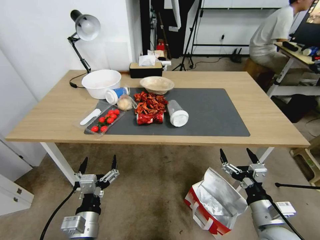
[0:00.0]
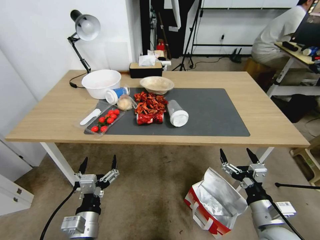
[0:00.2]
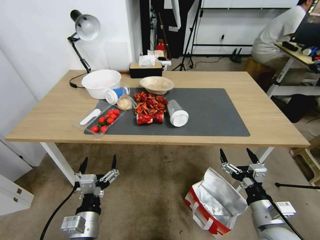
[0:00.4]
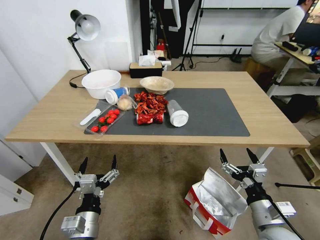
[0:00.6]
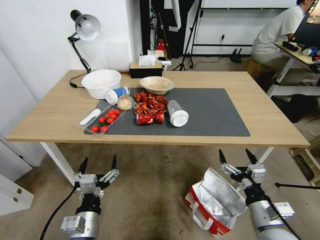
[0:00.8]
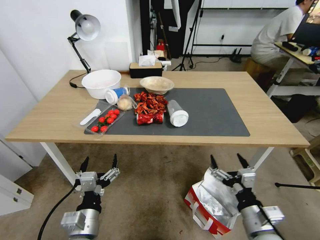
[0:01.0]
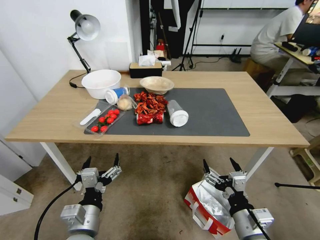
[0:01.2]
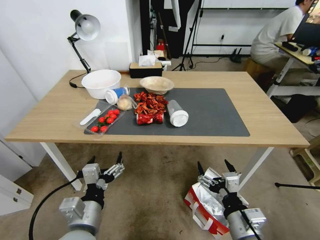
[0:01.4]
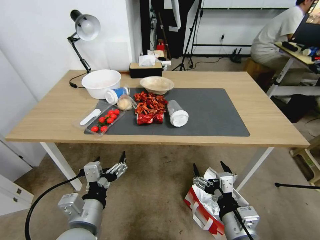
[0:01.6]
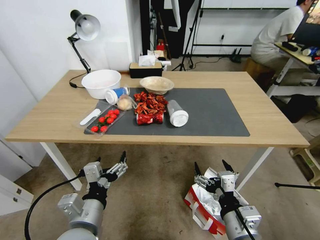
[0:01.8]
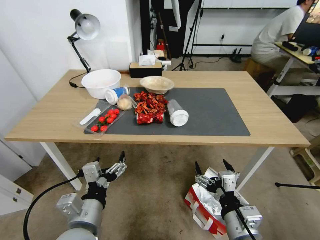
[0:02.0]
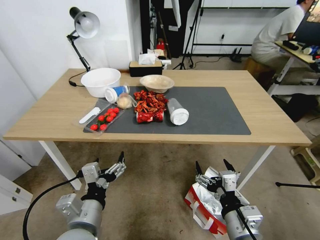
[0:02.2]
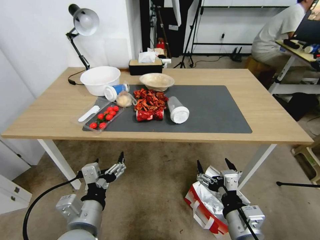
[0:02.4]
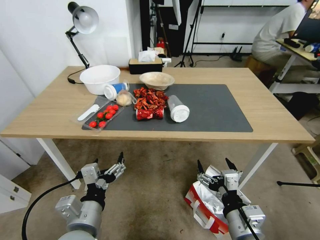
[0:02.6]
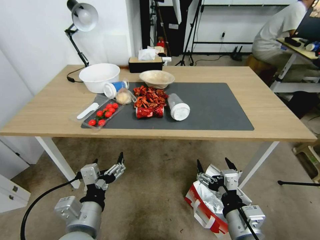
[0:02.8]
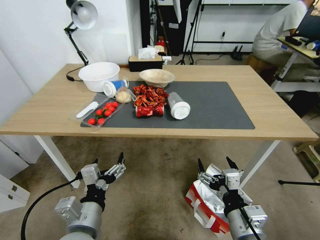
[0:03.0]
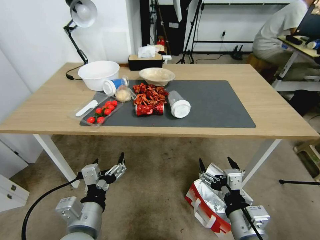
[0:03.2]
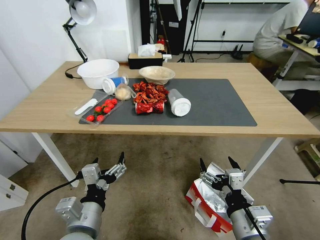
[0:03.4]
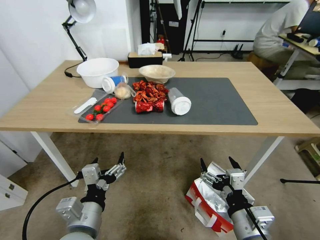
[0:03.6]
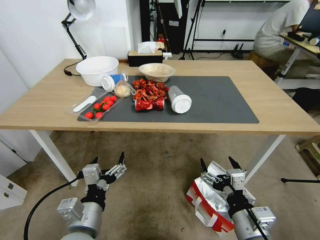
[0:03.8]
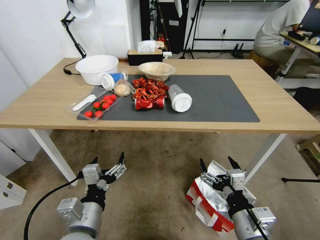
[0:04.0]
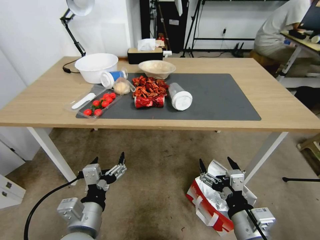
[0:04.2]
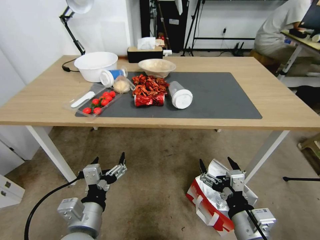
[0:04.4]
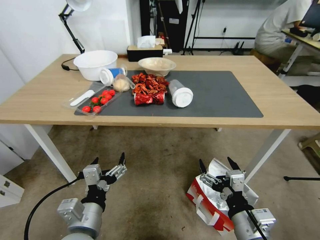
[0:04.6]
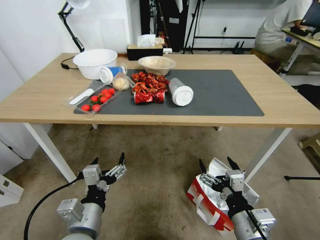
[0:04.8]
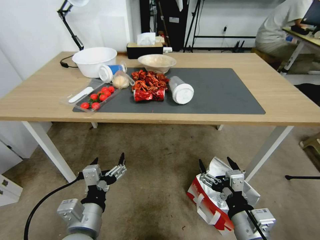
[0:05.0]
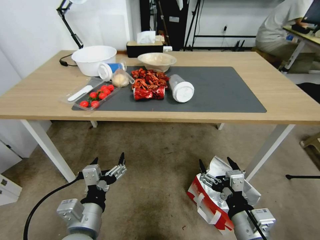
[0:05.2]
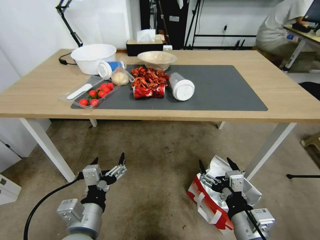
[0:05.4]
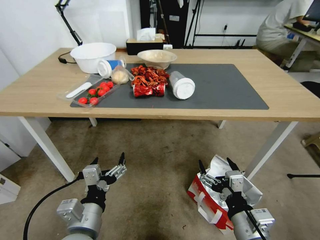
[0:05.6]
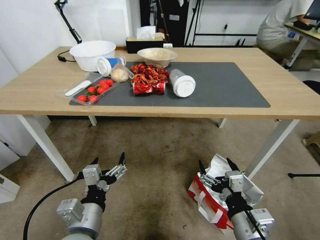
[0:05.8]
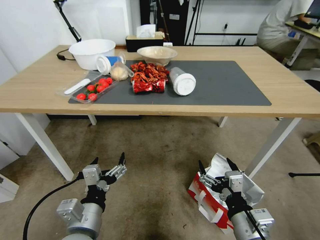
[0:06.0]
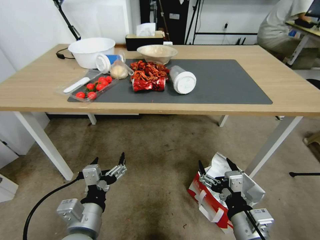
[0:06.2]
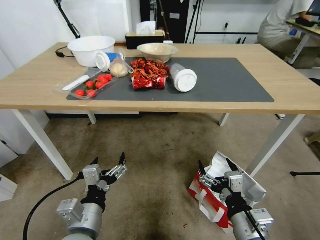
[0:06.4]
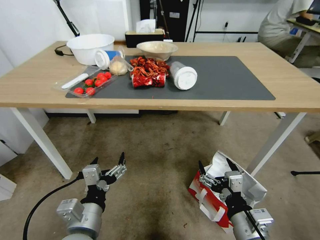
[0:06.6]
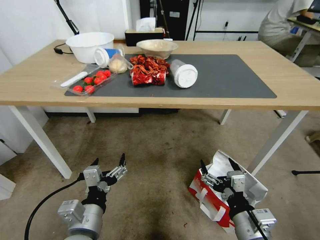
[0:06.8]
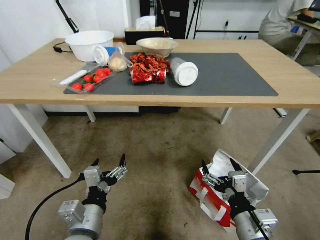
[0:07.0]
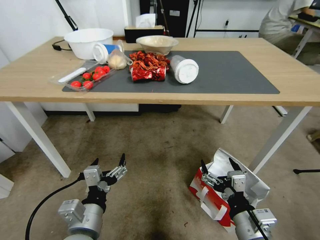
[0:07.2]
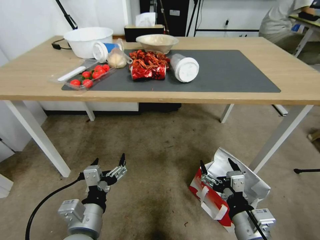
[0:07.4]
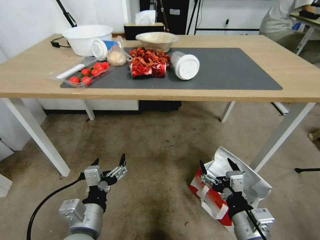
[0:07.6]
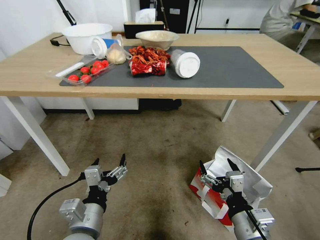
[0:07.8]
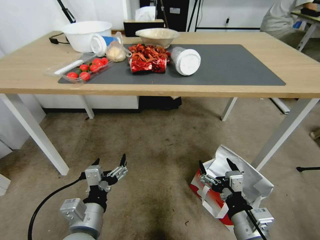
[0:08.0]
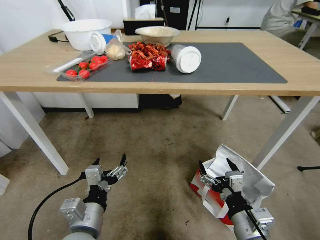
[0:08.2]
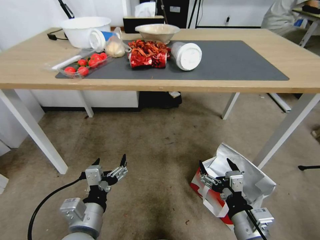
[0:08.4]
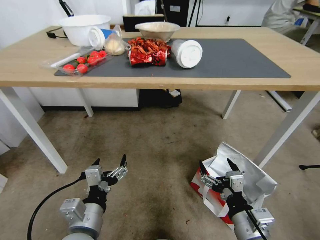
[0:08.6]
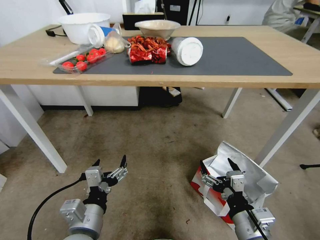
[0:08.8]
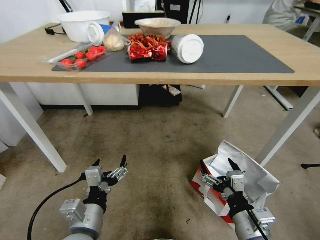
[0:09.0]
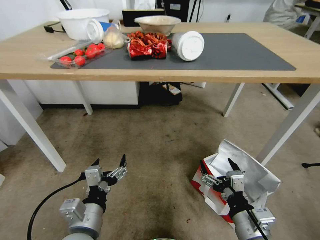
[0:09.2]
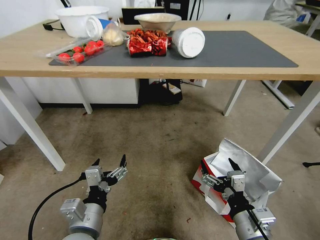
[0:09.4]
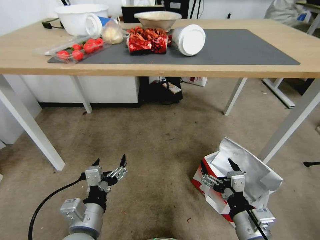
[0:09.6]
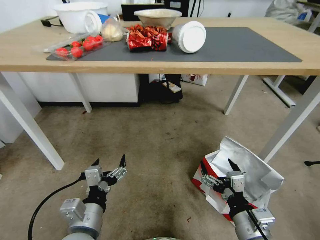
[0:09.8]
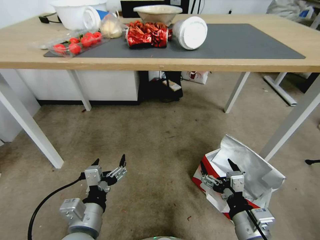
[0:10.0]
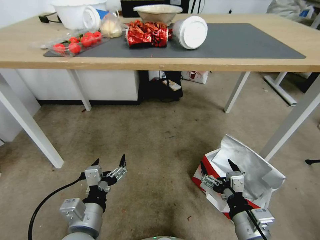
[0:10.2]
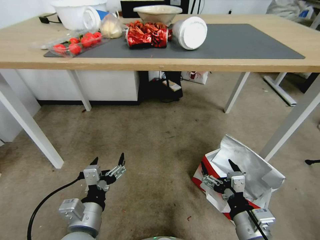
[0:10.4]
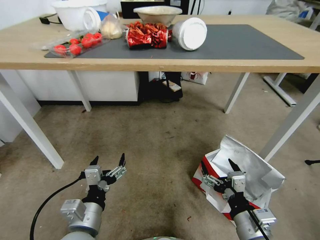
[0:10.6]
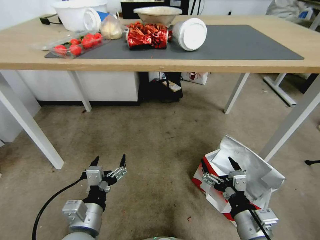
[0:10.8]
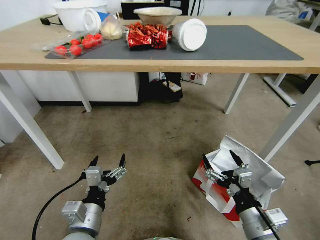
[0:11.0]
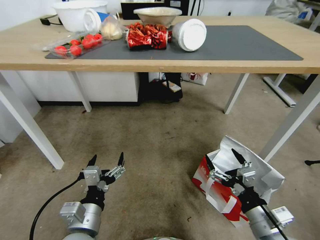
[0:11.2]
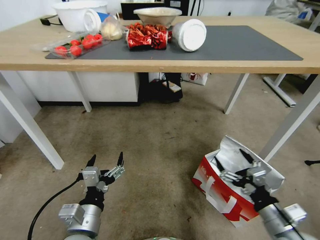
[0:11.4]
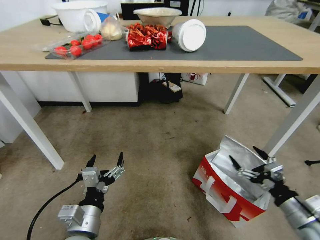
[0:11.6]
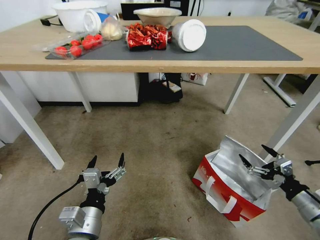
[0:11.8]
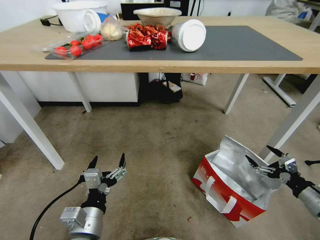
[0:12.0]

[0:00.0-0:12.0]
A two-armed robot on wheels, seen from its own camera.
Task of the whole recording: Pick up the food delivery bag from the floor and place it on the table.
0:10.4 to 0:12.0: The right gripper shifts some 25 cm to the right.

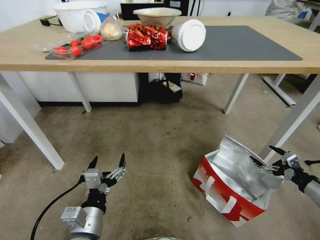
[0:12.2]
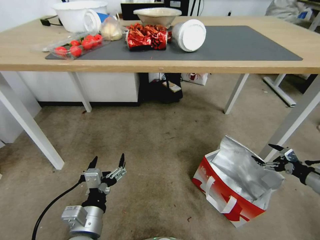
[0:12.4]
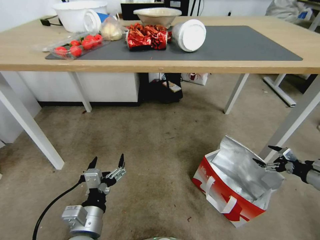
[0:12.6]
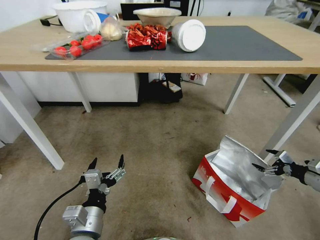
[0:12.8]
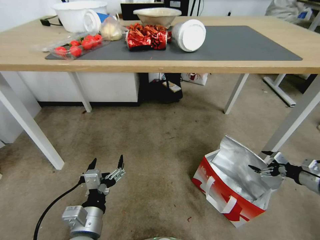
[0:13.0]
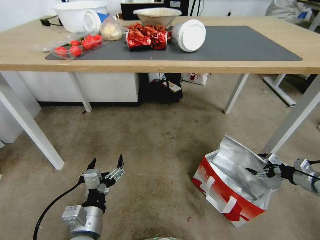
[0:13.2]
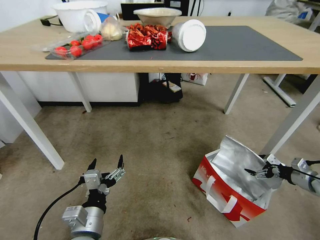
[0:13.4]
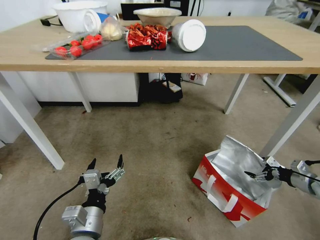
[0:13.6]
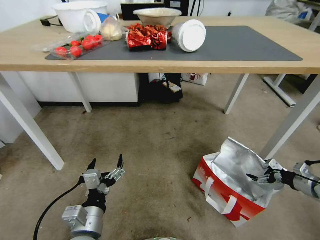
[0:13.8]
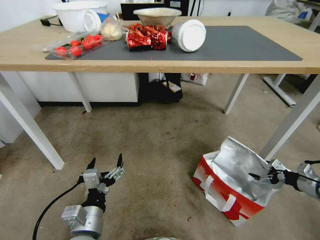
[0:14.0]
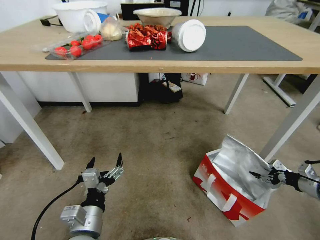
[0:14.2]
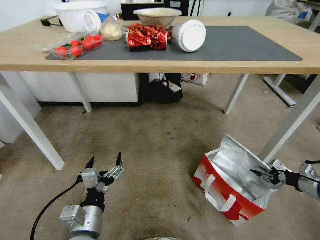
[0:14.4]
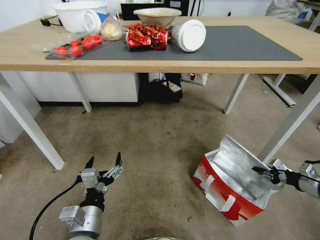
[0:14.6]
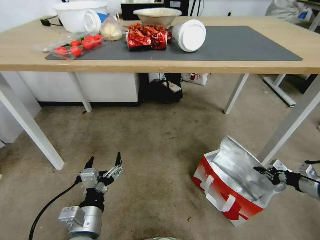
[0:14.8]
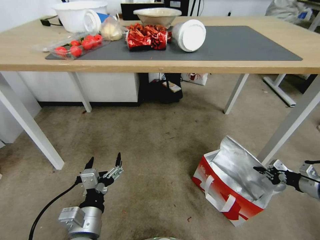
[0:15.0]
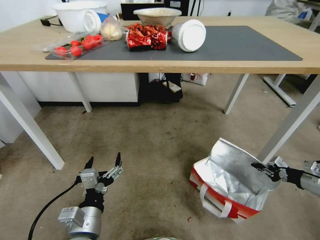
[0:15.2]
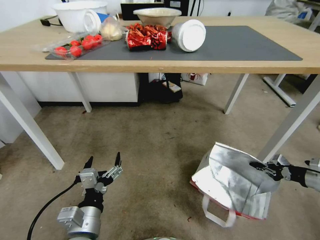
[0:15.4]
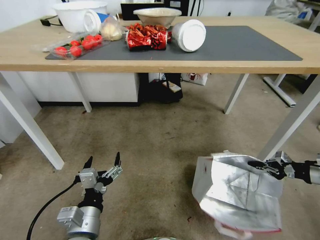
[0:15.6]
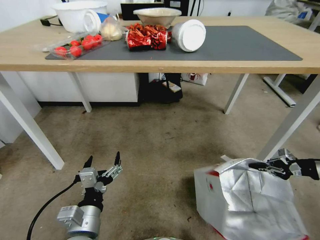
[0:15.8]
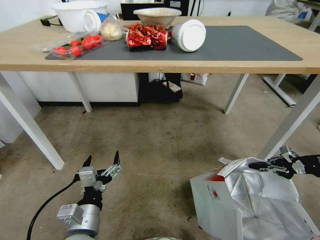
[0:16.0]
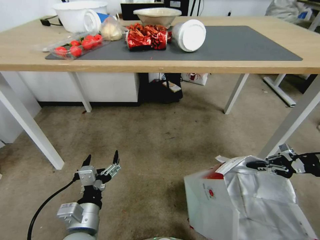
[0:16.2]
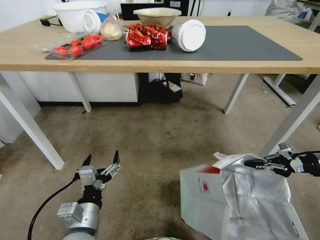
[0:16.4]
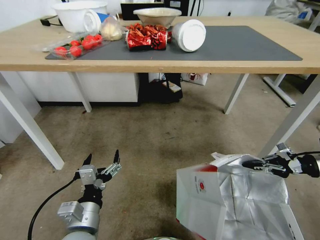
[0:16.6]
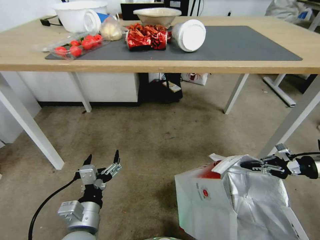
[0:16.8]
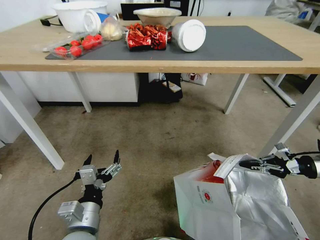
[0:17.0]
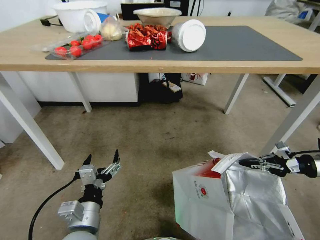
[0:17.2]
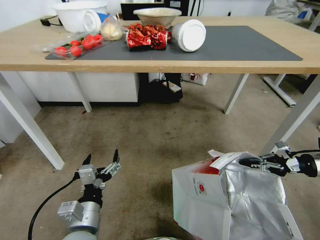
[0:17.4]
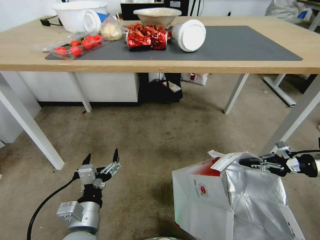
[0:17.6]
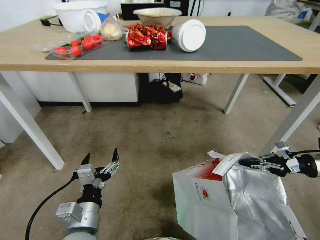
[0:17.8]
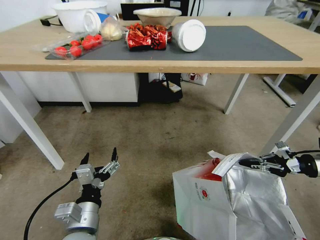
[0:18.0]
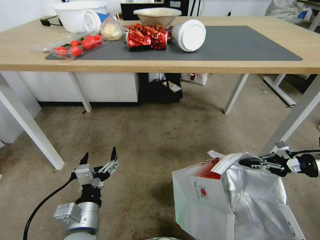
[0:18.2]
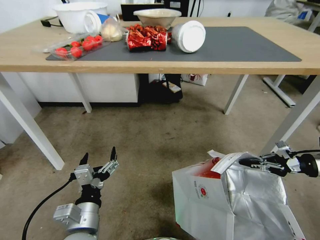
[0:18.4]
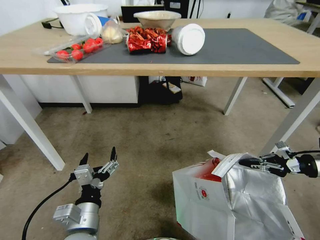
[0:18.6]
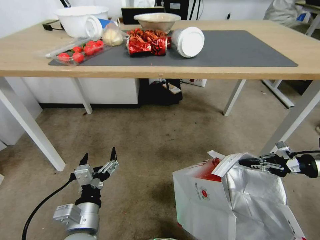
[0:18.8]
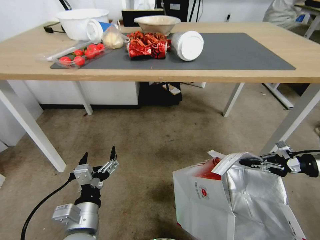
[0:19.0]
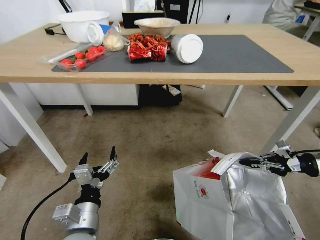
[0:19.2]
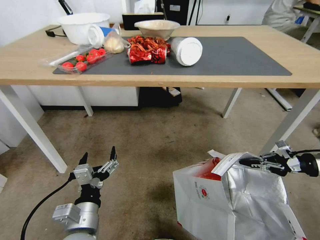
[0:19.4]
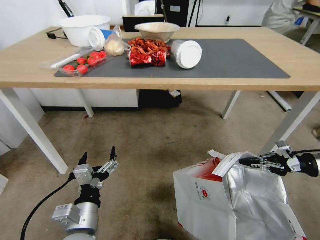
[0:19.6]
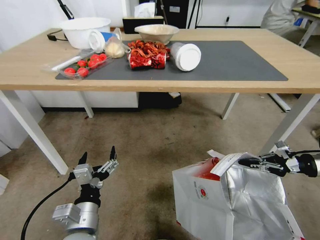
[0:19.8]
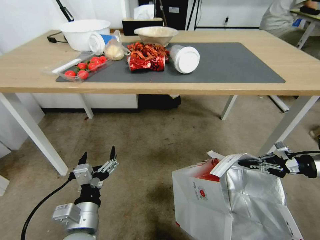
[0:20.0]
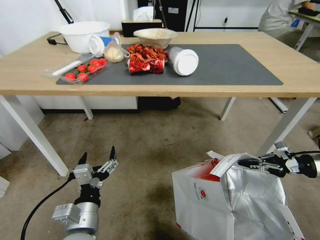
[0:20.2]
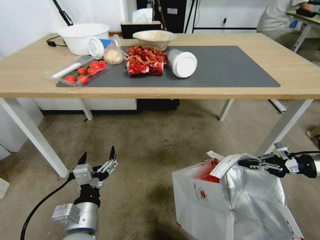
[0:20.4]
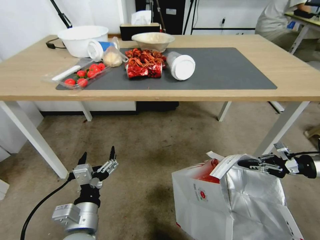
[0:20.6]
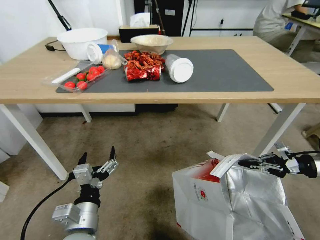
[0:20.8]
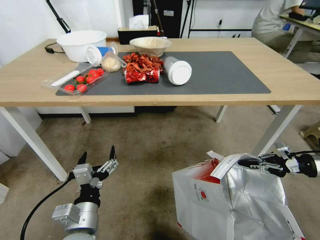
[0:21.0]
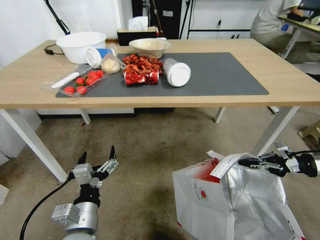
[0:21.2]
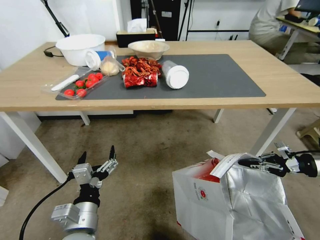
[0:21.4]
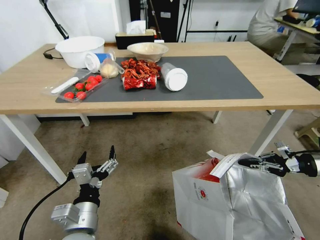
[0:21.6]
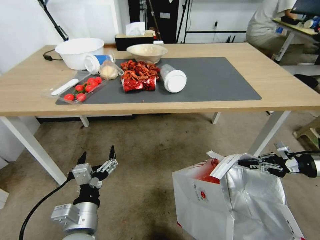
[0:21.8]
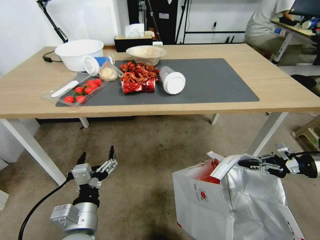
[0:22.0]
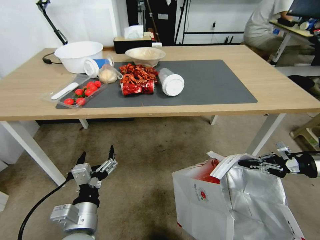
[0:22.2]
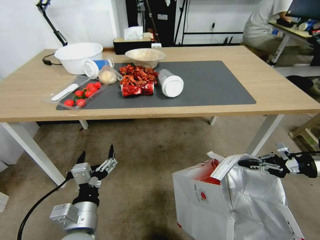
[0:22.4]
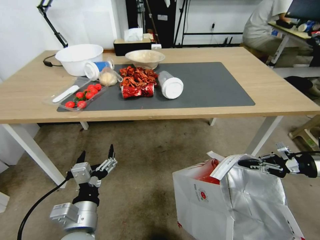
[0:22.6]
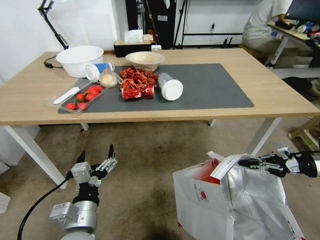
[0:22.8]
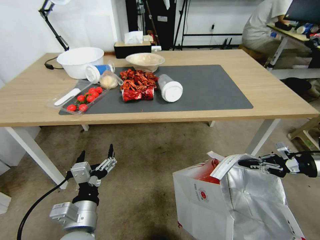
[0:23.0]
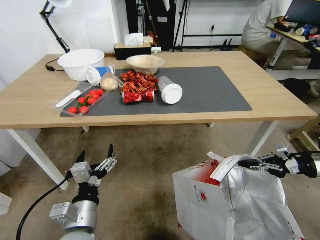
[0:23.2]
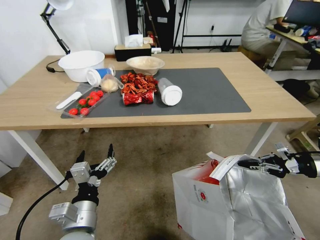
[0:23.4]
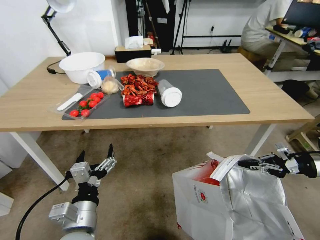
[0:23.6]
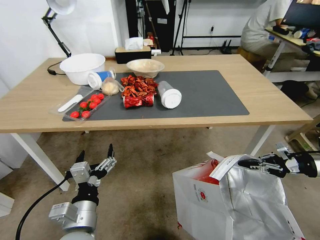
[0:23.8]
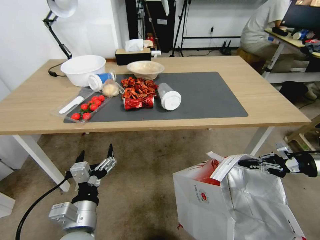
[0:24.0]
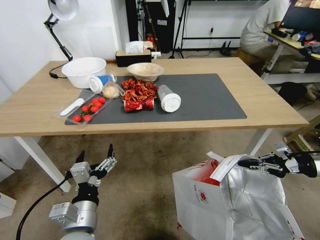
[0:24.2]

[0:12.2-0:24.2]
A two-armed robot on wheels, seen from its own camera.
Task of the whole recording: Pick up the food delivery bag from the floor and place it on the table.
0:12.2 to 0:13.8: The right gripper goes about 5 cm forward.
0:13.8 to 0:15.2: The right gripper closes up.
0:15.2 to 0:16.6: The right gripper shifts approximately 10 cm upward.
0:16.6 to 0:18.2: There are only small adjustments of the grippers.
